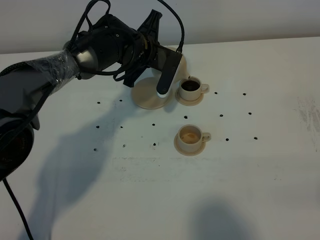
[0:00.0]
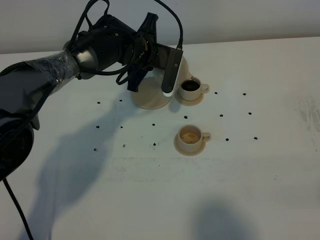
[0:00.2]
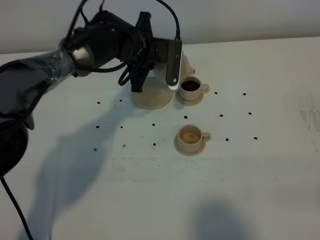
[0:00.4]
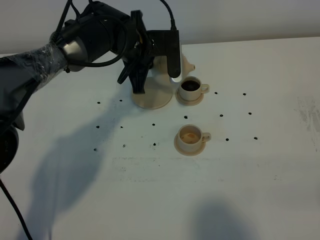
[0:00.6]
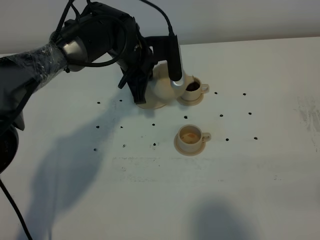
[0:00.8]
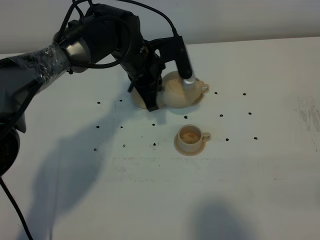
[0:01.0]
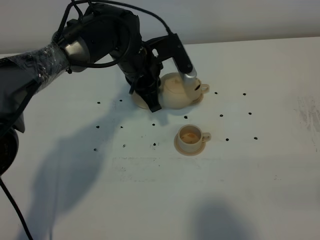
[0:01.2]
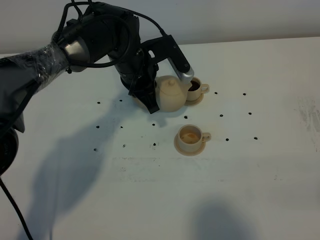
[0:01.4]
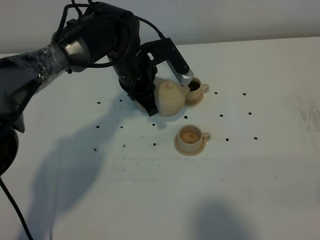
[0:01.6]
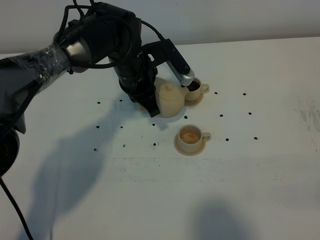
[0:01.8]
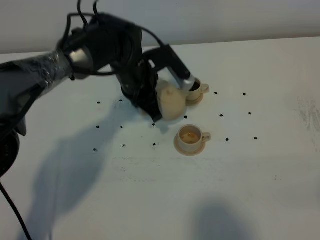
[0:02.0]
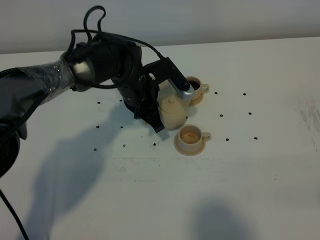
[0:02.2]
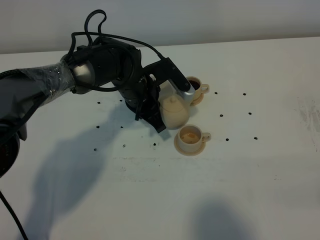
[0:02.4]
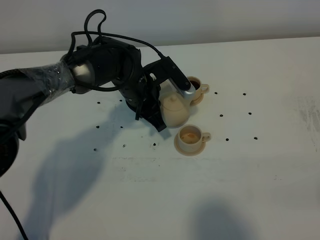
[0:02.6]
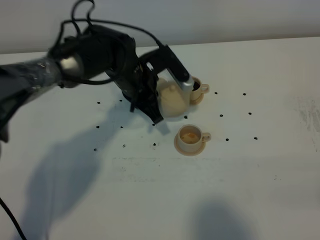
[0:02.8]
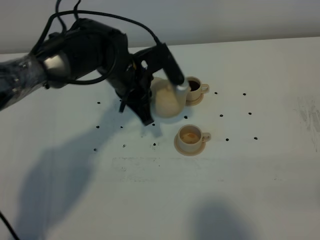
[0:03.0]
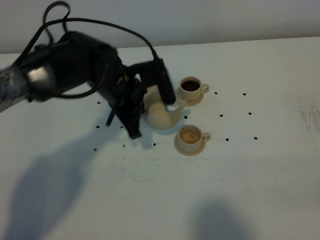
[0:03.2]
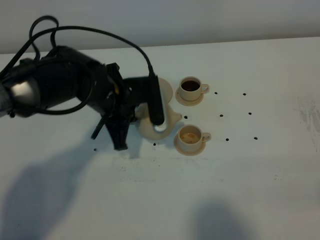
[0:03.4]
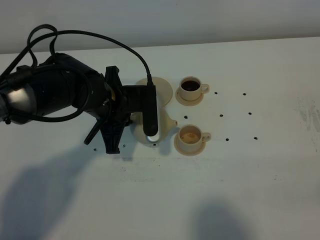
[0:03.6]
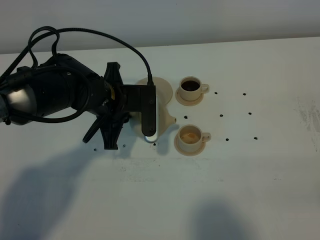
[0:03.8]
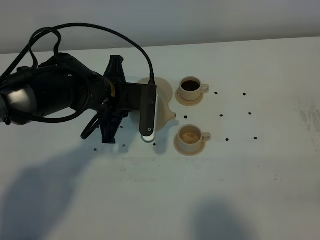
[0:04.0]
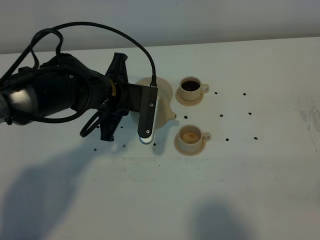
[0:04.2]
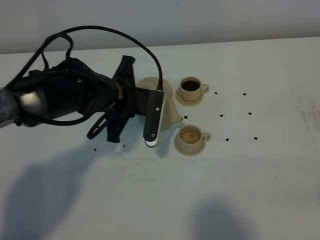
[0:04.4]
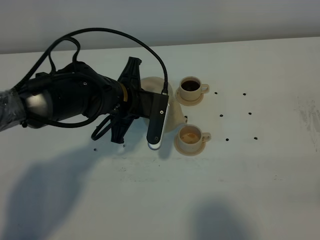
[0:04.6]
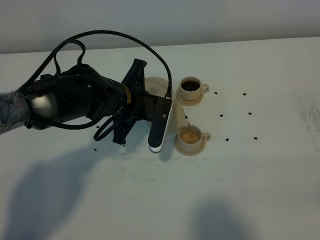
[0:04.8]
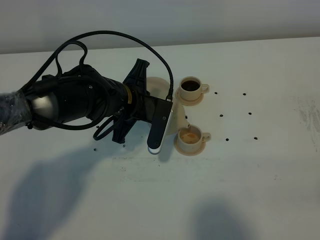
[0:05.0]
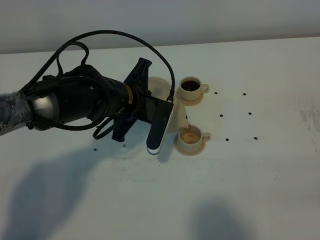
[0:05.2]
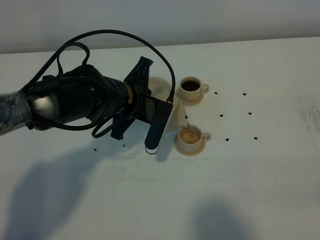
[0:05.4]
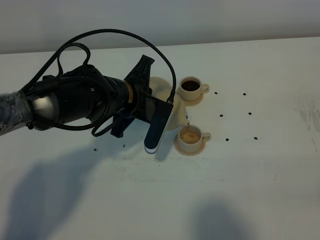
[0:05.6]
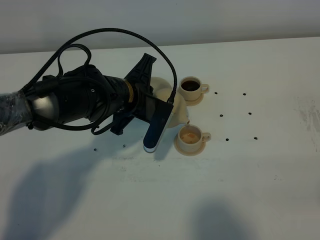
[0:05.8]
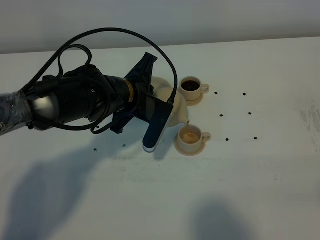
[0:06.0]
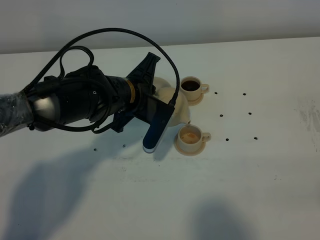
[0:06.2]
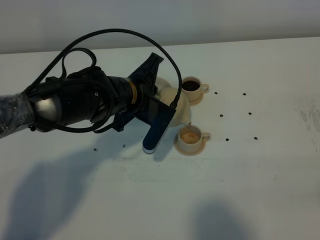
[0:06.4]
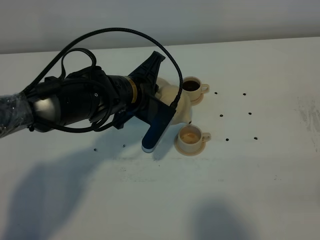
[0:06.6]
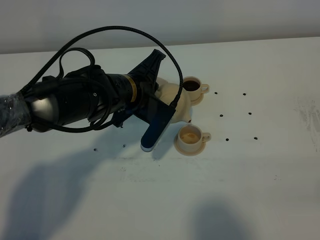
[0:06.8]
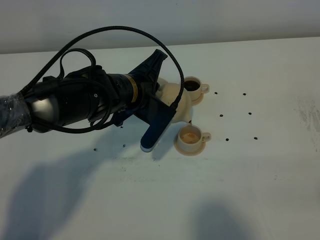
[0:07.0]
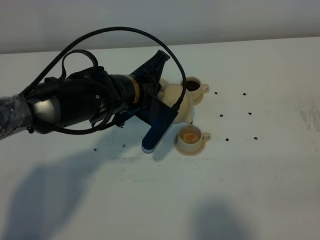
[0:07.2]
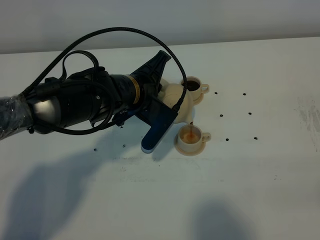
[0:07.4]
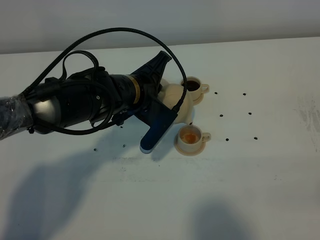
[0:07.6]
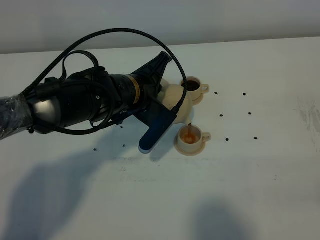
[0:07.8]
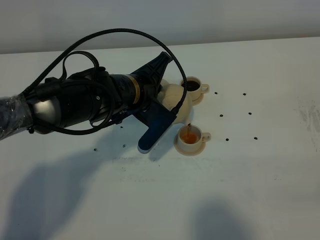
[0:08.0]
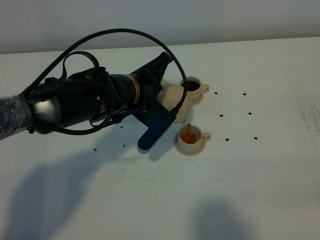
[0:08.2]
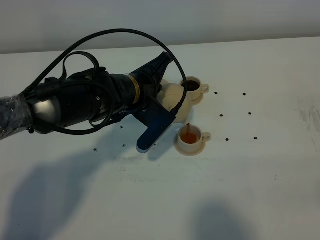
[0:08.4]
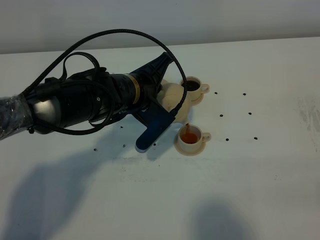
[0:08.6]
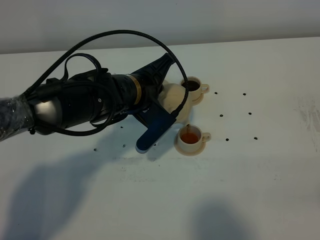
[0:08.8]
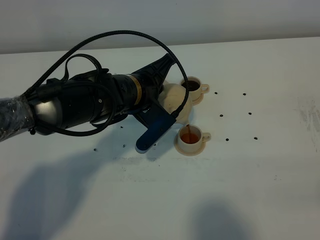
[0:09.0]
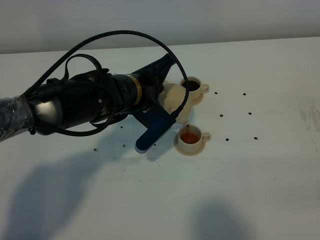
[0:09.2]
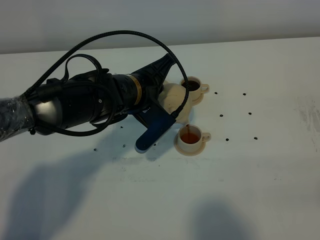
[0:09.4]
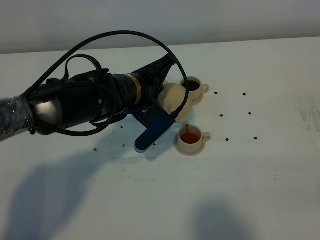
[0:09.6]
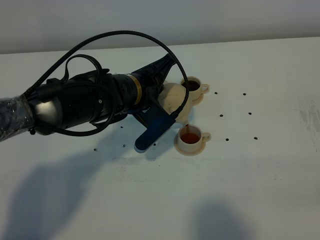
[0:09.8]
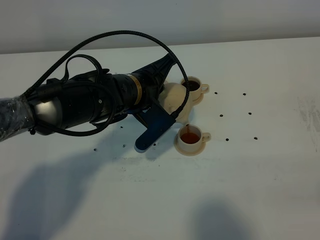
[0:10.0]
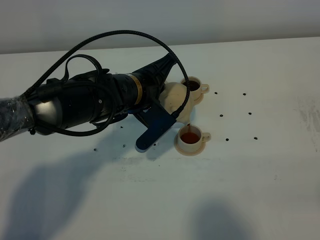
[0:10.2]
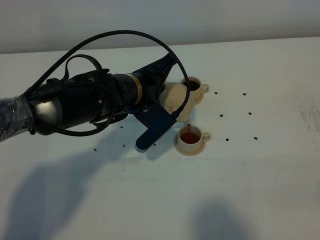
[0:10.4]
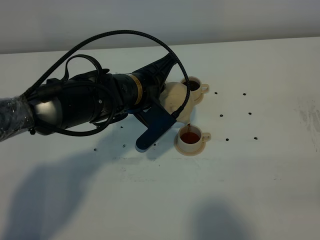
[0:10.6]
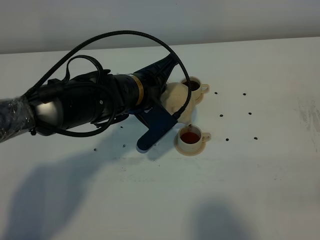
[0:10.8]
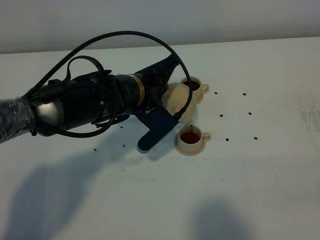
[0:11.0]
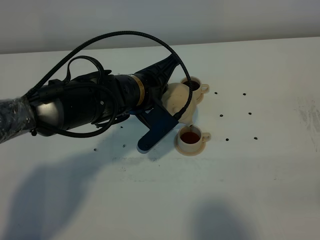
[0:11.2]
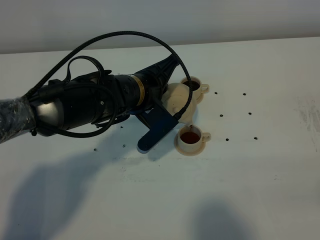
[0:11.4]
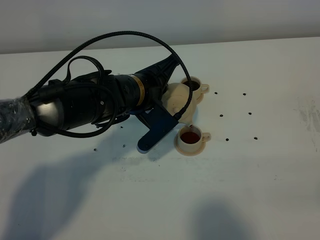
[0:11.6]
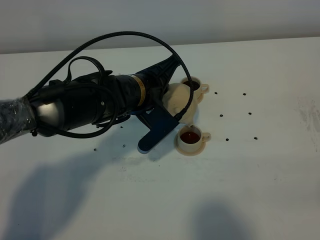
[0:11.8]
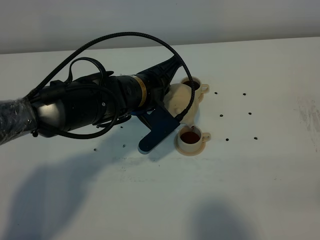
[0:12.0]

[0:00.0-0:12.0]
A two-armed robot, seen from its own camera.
Task of the whole recording: grasp the brown teapot and pour the tea into the two brown teacups one by one, put the brown teapot back in its original place.
0:00.0 to 0:01.6: The left gripper heads backward, covering approximately 5 cm.
0:01.6 to 0:03.0: There are only small adjustments of the grippers.
0:04.4 to 0:06.0: There are only small adjustments of the grippers.
0:06.0 to 0:07.6: The grippers make only small movements.
0:07.6 to 0:09.0: The grippers make only small movements.
0:09.0 to 0:12.0: Both grippers stay put.

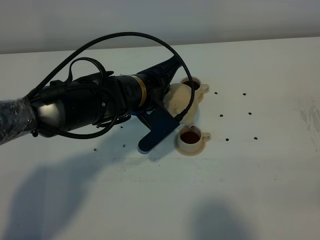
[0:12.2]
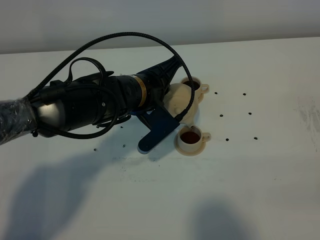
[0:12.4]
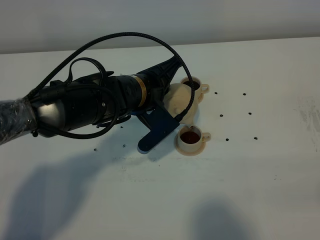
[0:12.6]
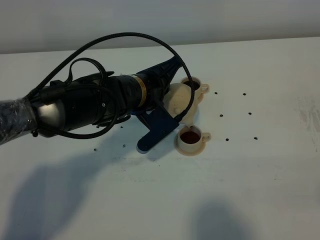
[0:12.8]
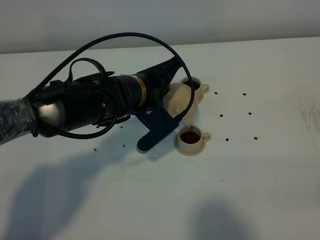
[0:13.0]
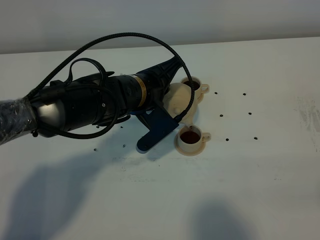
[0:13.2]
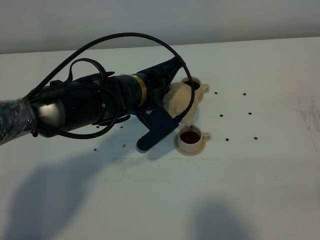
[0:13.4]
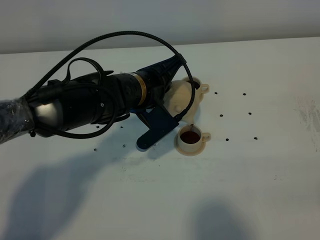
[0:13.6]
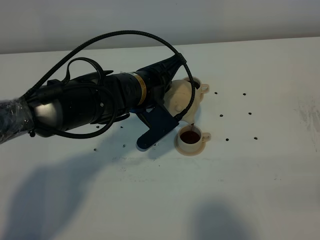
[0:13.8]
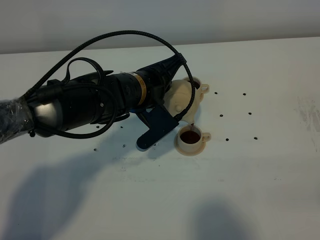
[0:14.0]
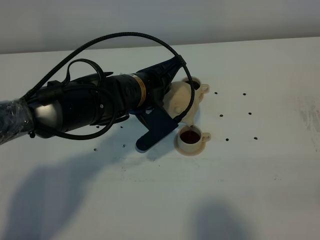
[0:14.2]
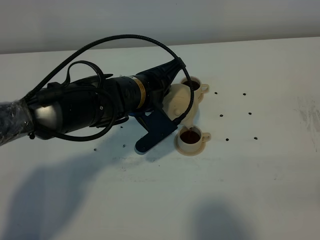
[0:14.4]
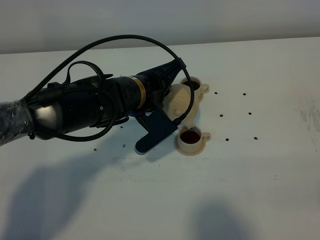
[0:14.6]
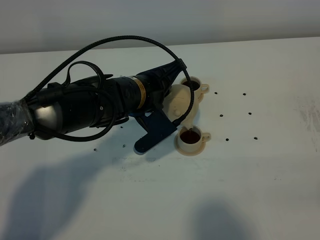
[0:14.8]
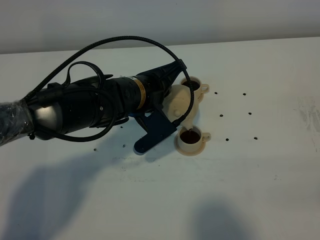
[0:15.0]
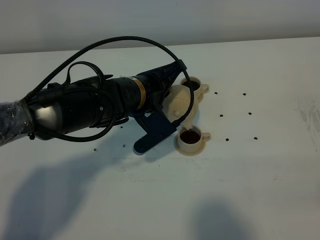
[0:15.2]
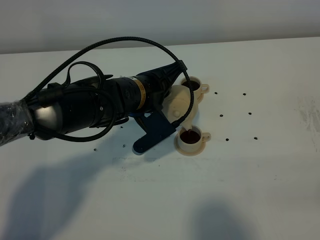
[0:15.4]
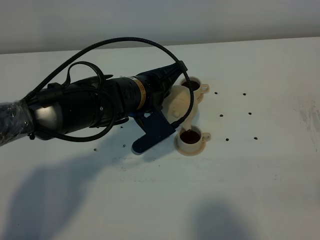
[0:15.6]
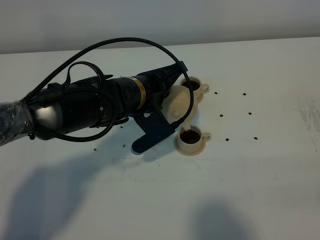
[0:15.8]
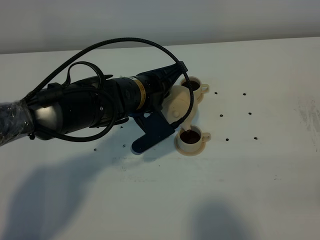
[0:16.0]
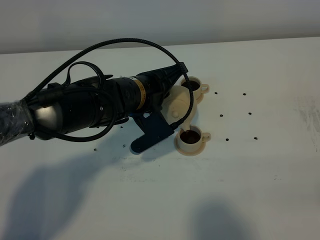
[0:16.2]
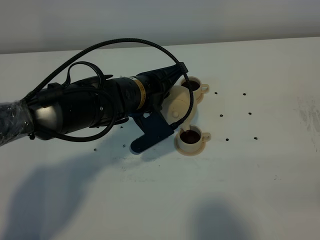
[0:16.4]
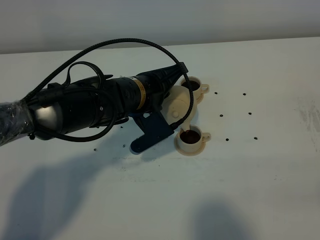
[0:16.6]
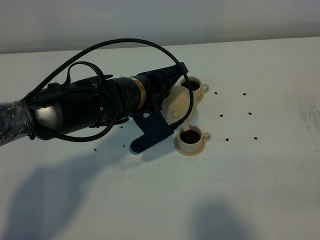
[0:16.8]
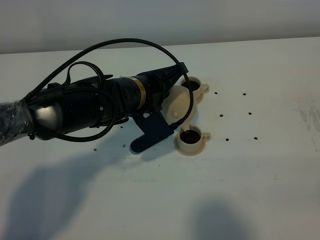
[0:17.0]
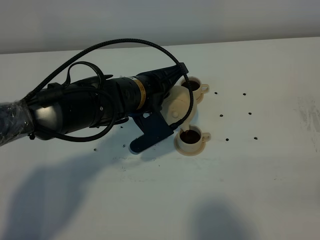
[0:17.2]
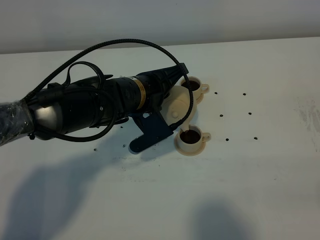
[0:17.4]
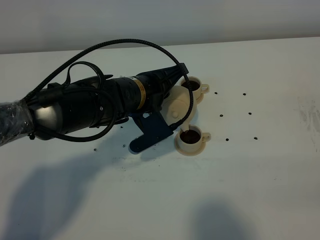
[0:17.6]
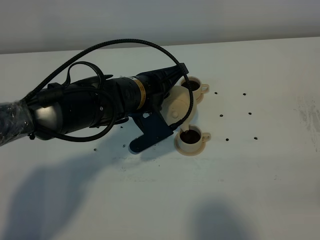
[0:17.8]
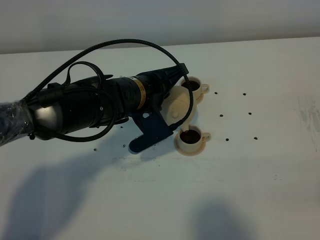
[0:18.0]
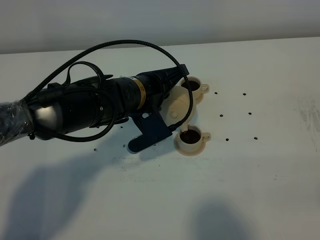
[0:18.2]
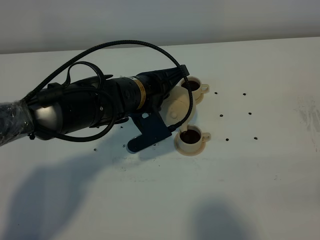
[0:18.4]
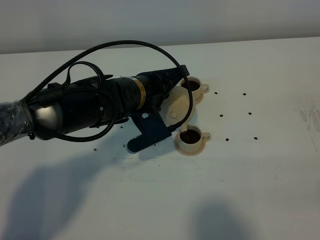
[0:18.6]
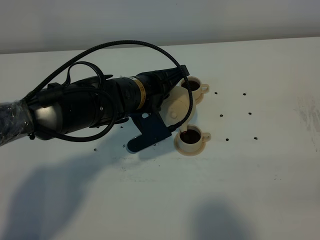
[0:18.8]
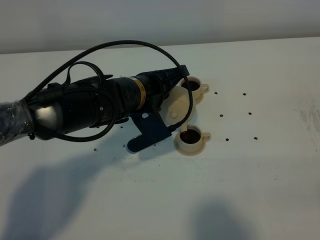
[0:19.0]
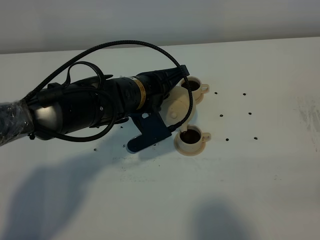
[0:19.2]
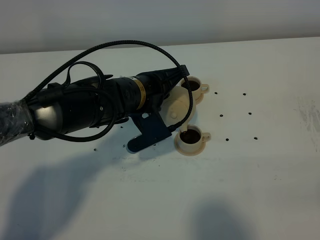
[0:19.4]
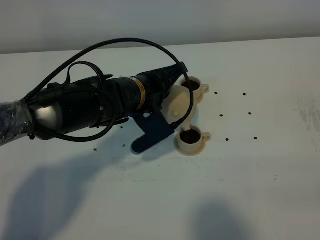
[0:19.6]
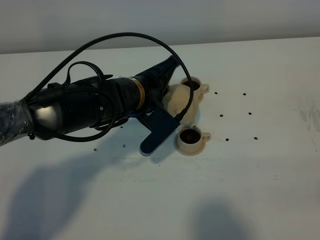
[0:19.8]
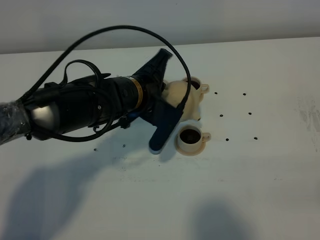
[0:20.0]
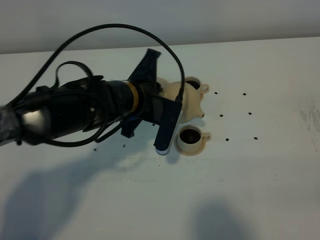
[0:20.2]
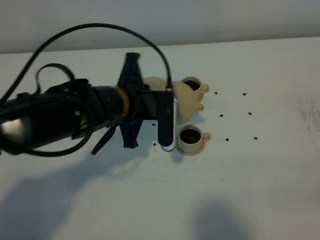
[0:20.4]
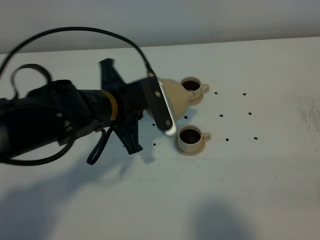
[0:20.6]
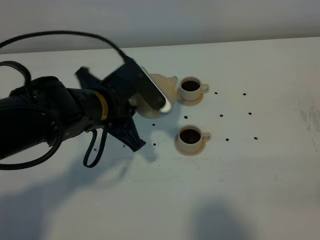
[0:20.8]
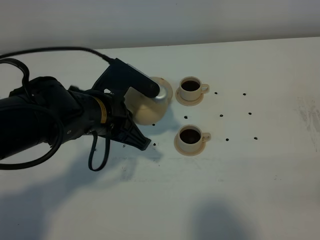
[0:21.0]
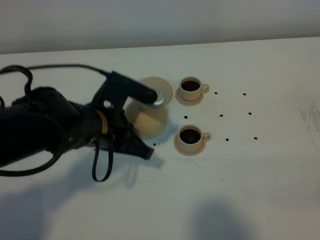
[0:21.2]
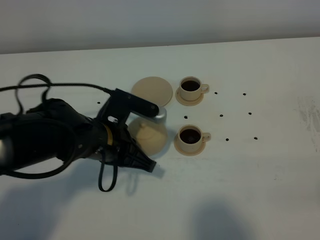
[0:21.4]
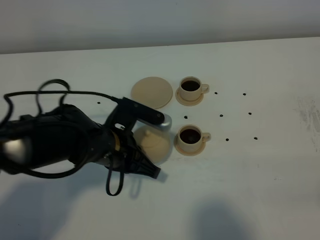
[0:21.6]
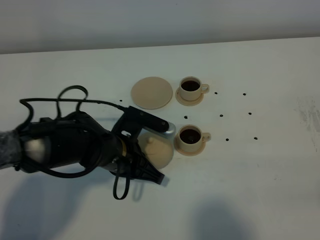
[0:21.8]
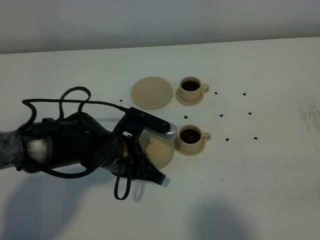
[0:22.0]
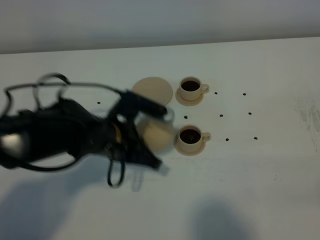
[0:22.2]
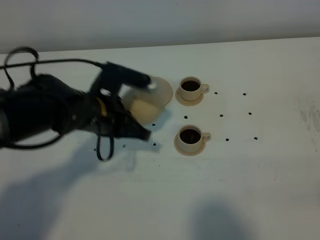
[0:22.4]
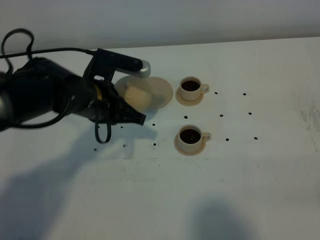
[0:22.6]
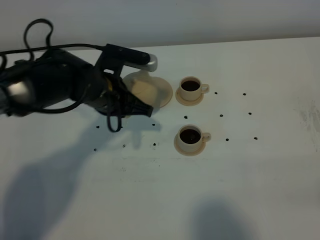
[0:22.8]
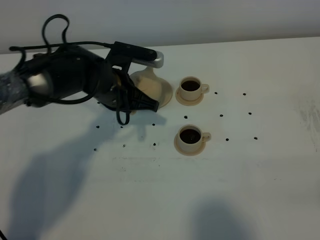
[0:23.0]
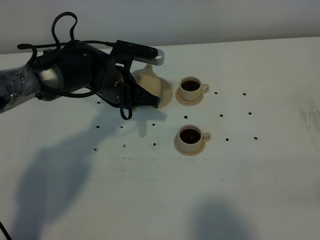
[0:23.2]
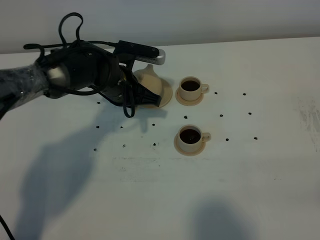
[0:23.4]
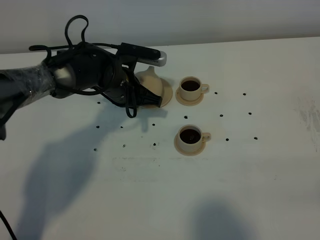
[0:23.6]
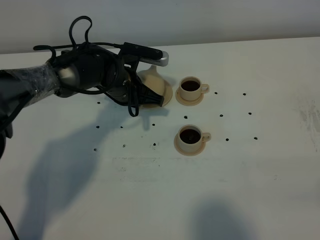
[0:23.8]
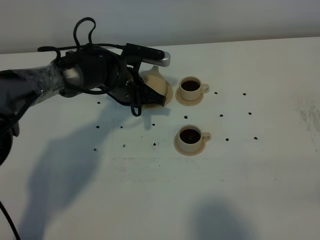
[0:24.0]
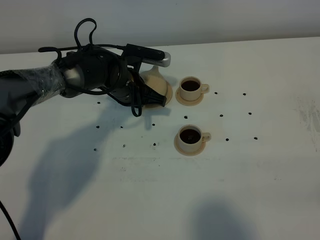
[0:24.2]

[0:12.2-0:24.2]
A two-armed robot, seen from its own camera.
Task of the whole recording: grasp the brown teapot and pour the tea into the two brown teacups one by one, put the brown teapot back in its original place.
Step, 0:12.2 to 0:20.2: Pour tea into the teacup with the left gripper.
0:12.2 to 0:13.8: The two grippers keep their place.
0:13.8 to 0:15.2: Both grippers stay put.
0:15.2 to 0:16.6: Both grippers stay put.
0:16.6 to 0:18.2: Neither gripper changes place.
0:18.2 to 0:19.8: The grippers move only a little.
0:19.8 to 0:21.2: The left gripper is displaced backward and to the left by some 10 cm.
0:21.2 to 0:22.6: The left gripper moves forward, approximately 5 cm.
0:22.6 to 0:24.2: The left gripper goes roughly 10 cm forward and downward.
